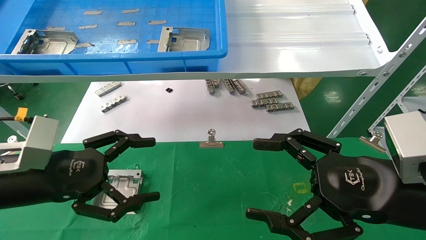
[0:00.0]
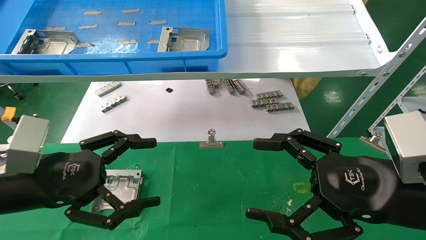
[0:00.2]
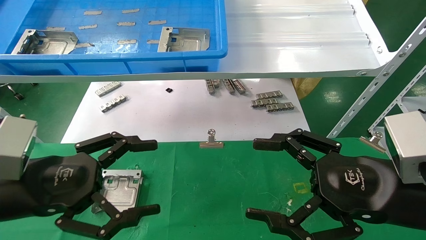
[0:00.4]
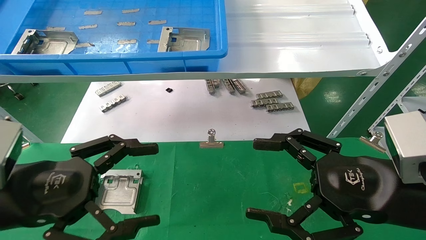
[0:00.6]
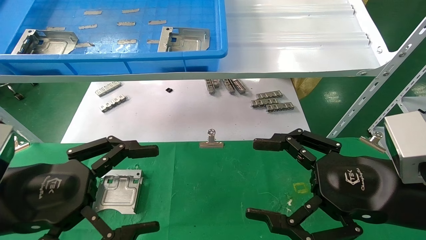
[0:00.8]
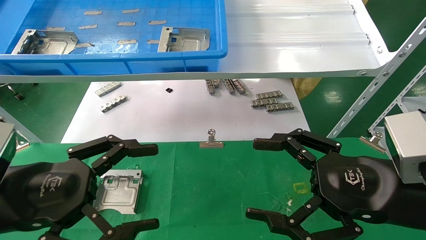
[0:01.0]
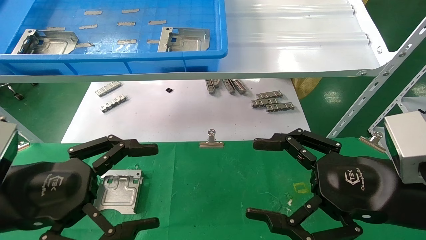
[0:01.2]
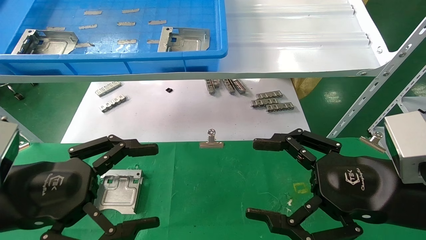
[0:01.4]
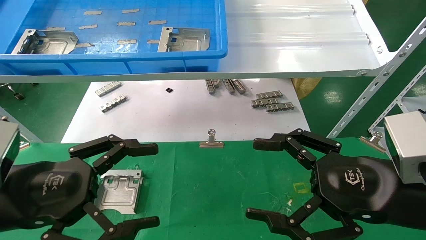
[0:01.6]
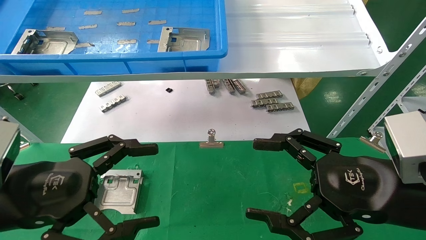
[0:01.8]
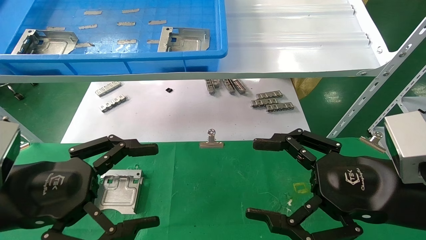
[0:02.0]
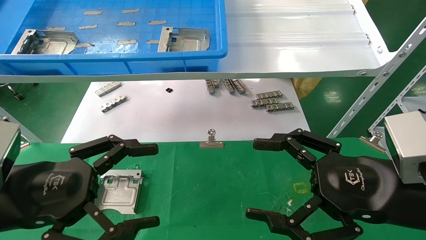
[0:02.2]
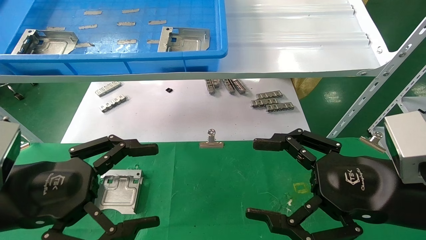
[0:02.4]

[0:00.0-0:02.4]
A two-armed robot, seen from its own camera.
Task of the whole recording: use the mechanical arm to pick up the parts and place them on the table.
0.0 to 1.2 s: The left gripper travels backward by some 5 cm.
1.2 to 2.4 s: Both grippers stay put.

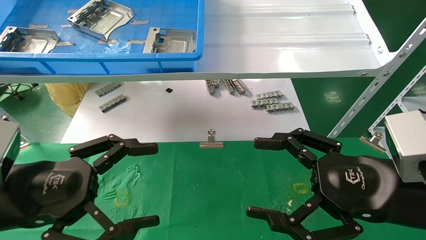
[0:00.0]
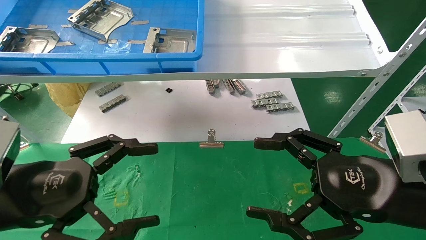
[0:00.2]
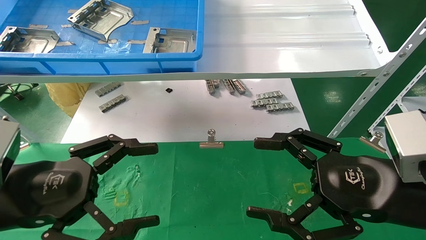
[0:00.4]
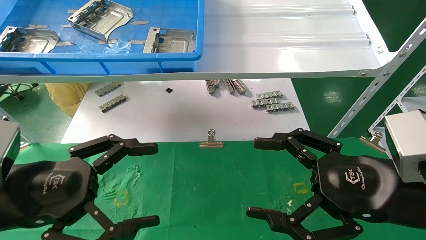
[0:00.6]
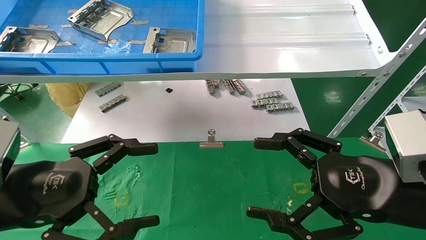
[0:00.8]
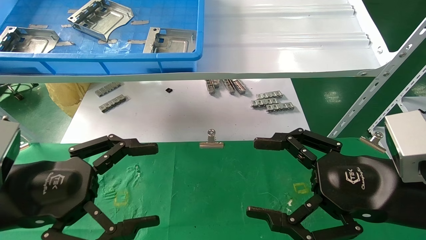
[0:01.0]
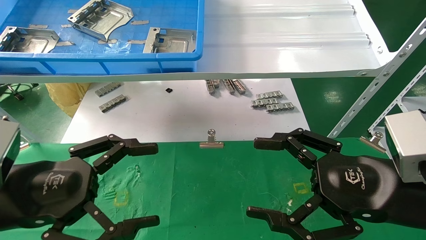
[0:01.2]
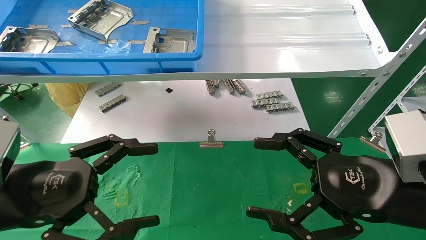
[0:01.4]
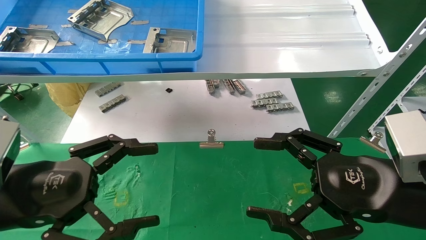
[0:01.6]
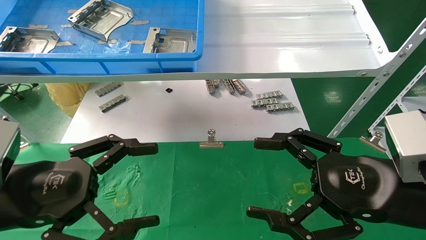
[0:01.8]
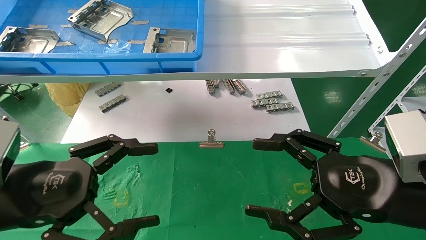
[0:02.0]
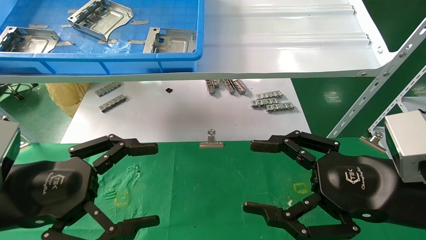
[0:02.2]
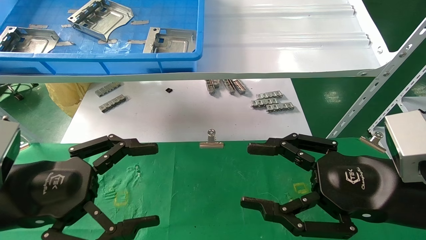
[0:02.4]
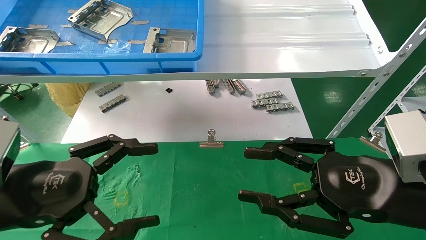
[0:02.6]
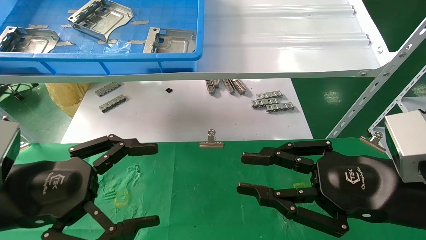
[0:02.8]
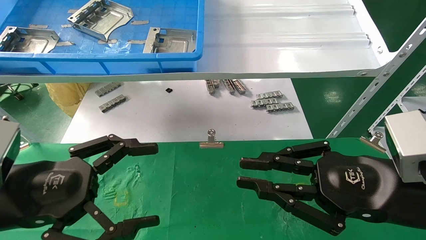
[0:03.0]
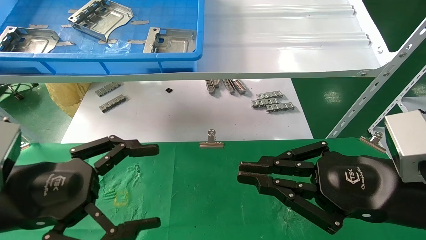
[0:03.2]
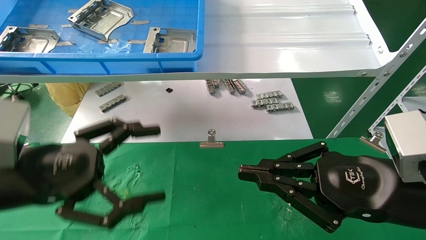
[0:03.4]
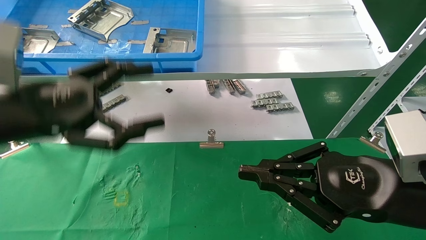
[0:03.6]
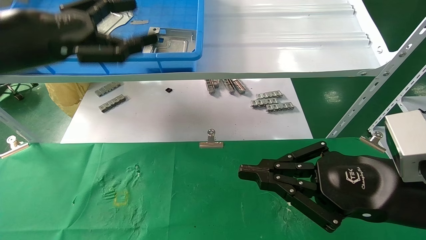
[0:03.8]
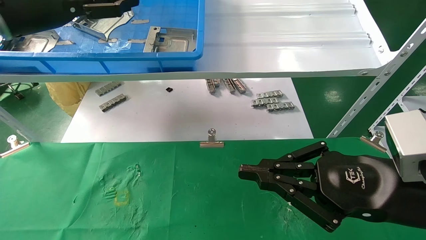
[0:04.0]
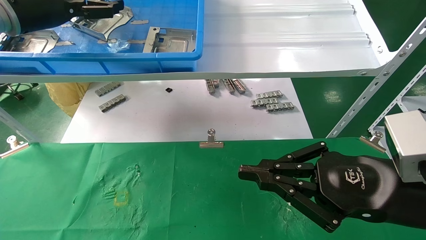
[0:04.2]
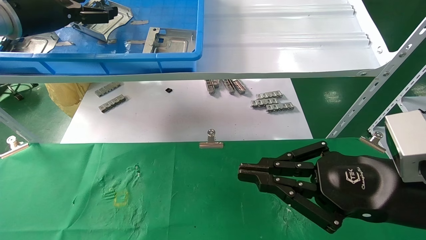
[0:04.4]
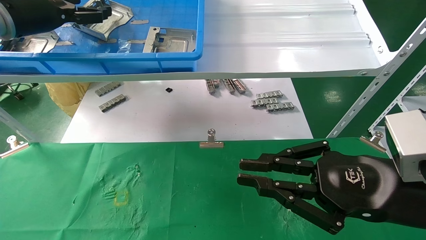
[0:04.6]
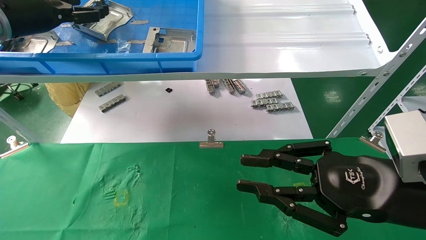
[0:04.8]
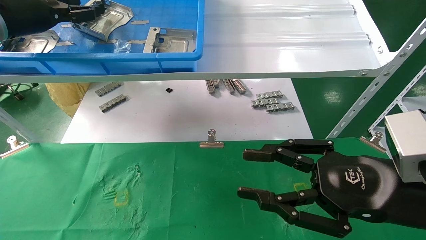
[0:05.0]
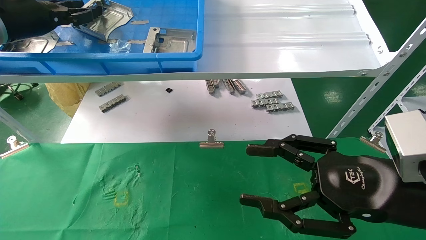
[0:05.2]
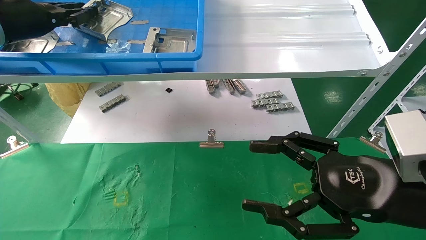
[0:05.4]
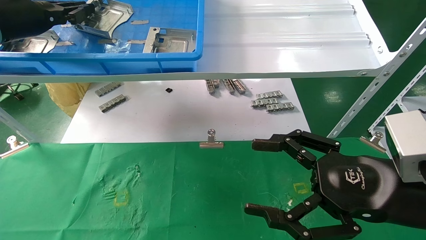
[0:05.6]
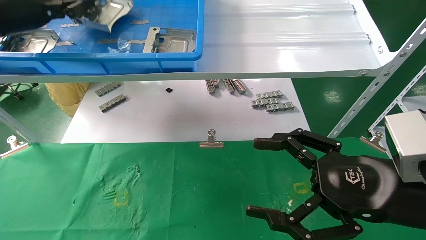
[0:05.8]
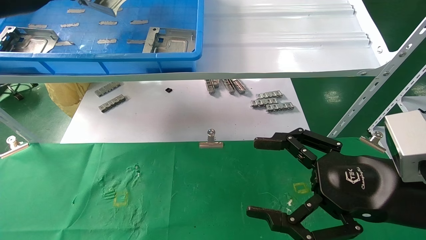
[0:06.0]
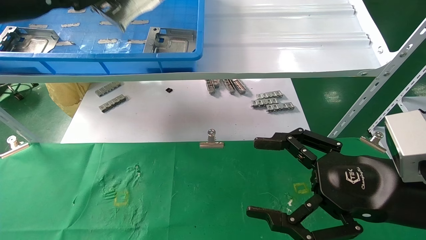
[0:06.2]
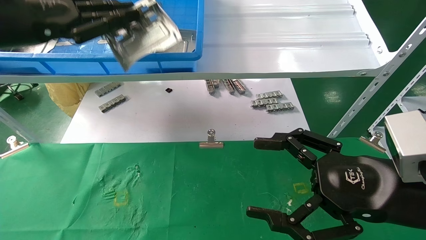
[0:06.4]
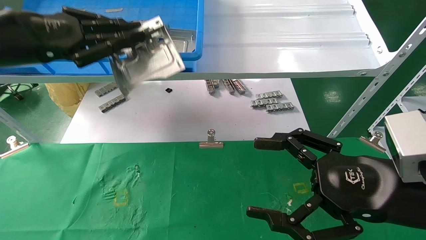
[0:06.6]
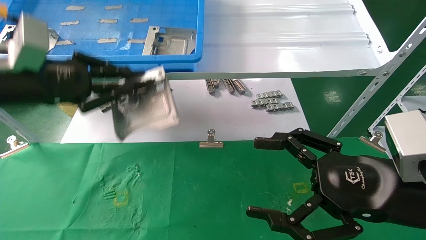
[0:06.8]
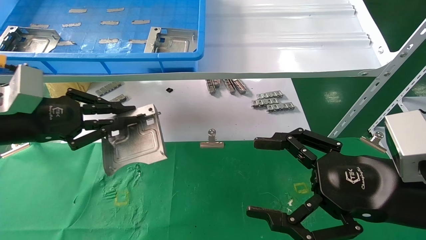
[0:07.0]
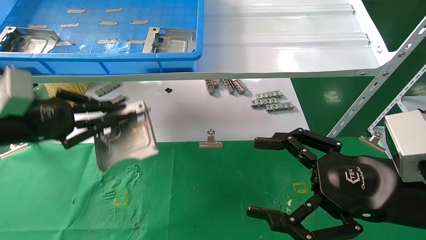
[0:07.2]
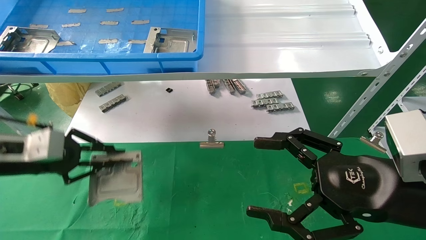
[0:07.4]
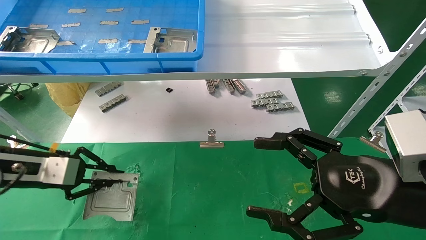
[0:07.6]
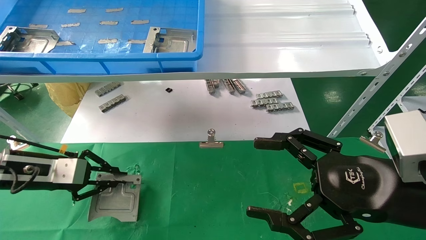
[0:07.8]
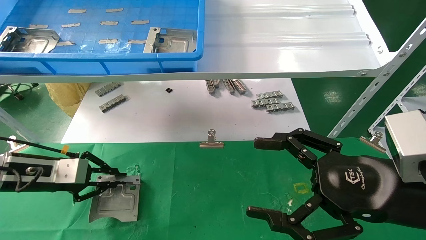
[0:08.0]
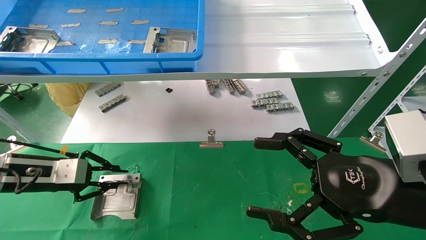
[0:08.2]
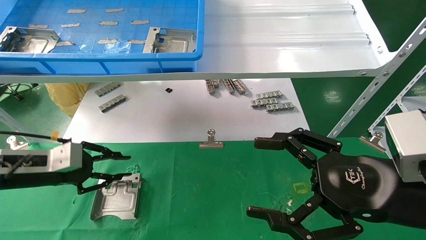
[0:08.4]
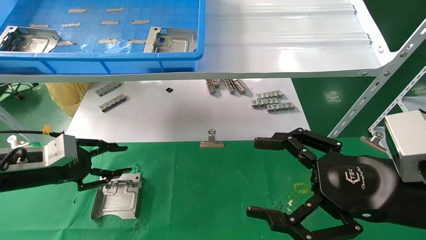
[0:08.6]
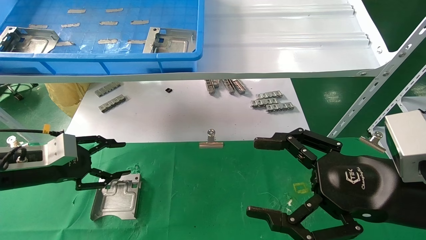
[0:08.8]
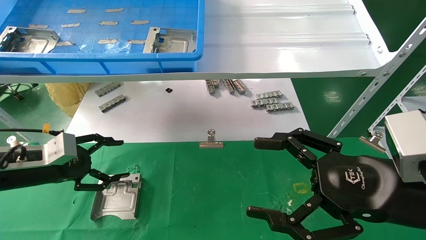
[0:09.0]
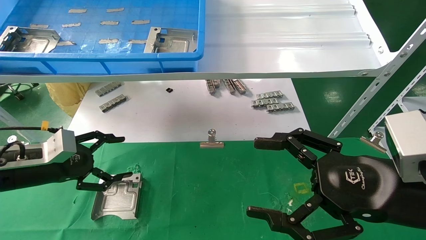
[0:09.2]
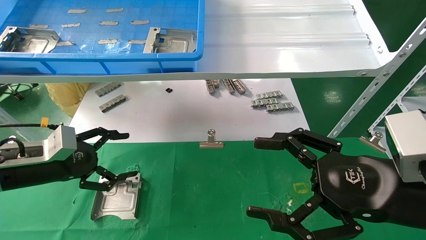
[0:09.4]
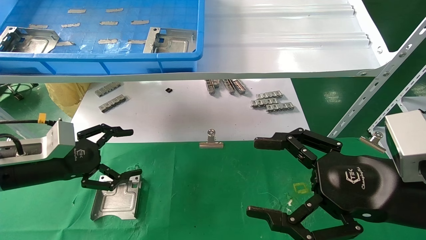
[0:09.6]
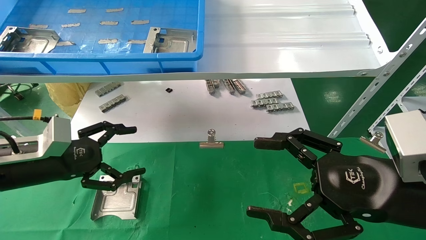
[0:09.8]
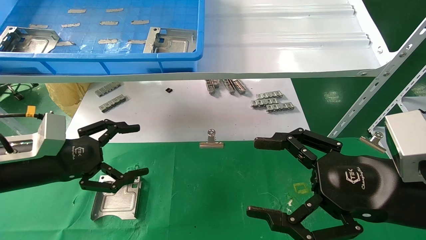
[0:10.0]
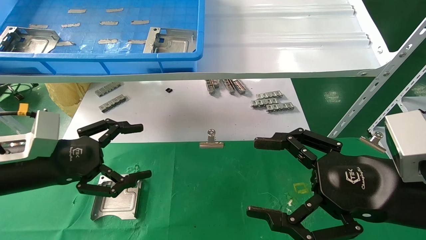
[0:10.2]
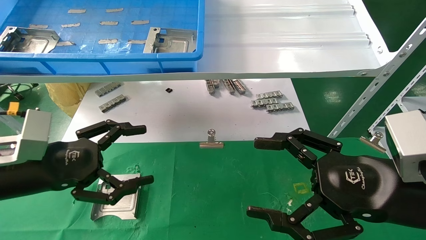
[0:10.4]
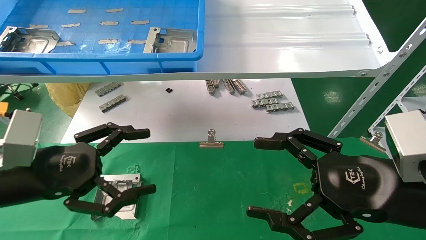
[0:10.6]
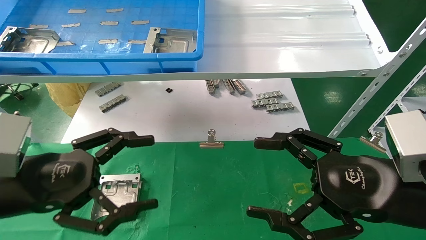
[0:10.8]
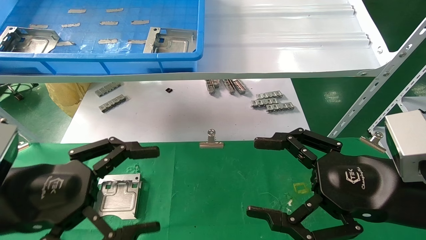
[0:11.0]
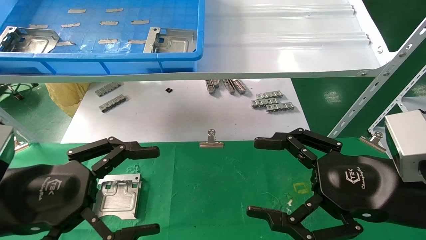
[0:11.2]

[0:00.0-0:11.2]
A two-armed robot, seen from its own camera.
Task of the whole recording: use the mechanical arm to pick up the parts and place them on the table.
Step, 3.6 to 5.6 s: Pick up the hard drive bracket from the feeding area.
Step, 5.8 to 8.4 s: Place the hard drive bracket into the box.
0.0 to 1.6 s: Both grippers stay put.
1.6 to 3.2 s: The right gripper closes.
3.2 to 4.8 s: The left gripper travels forward and upward by approximately 30 cm.
4.8 to 6.4 s: The right gripper opens its fingers; the left gripper shifts some 10 cm backward, and closes up.
6.4 to 8.0 s: The left gripper is displaced downward by roughly 25 cm.
8.0 to 9.6 s: The left gripper opens its fingers.
9.6 to 11.2 s: The left gripper travels backward and to the right by roughly 15 cm.

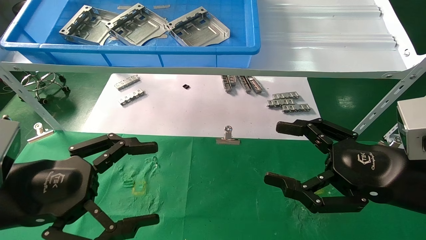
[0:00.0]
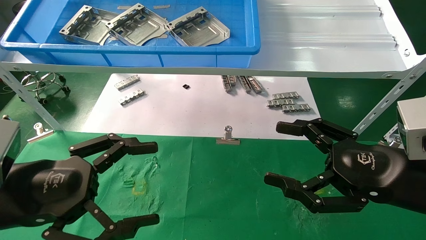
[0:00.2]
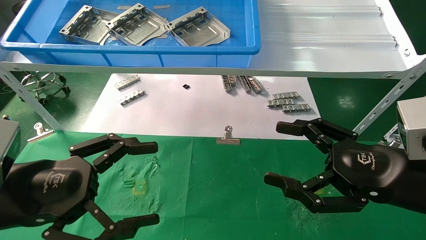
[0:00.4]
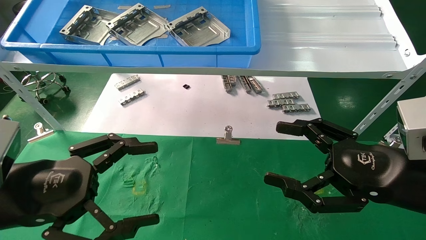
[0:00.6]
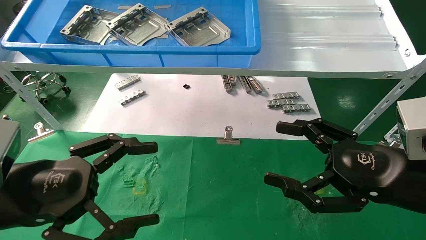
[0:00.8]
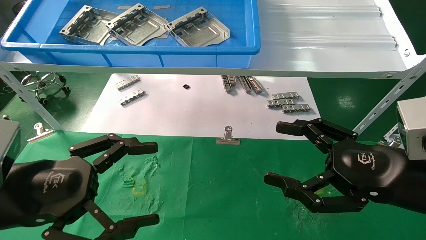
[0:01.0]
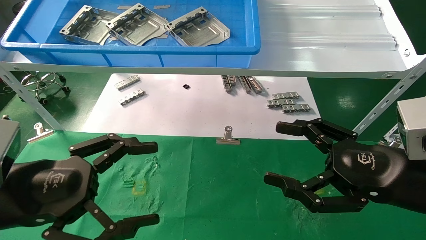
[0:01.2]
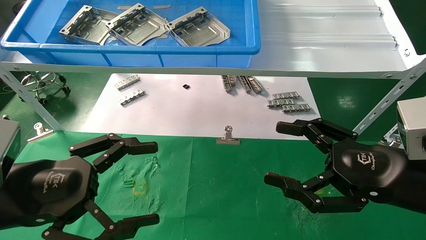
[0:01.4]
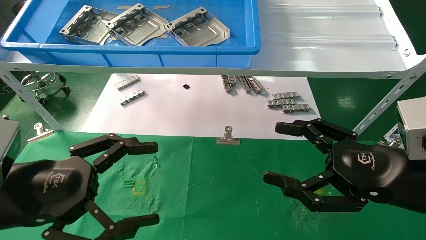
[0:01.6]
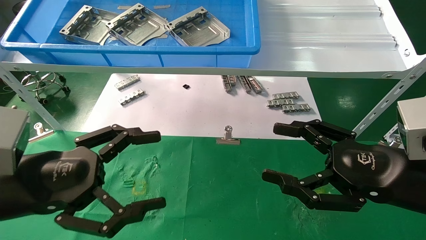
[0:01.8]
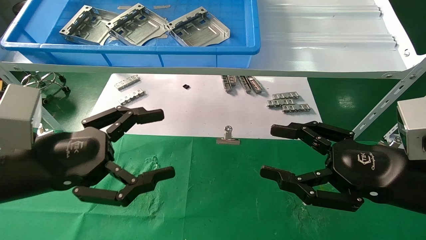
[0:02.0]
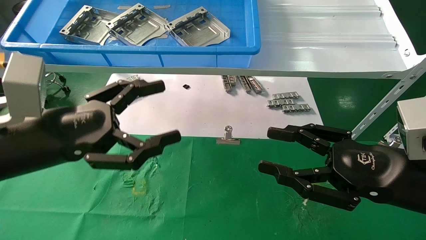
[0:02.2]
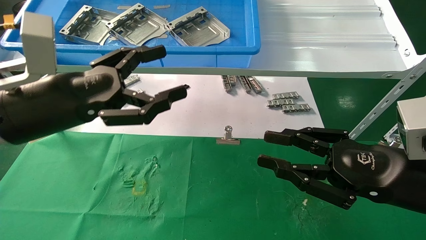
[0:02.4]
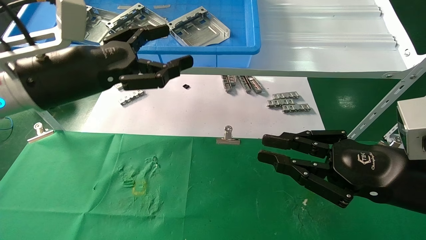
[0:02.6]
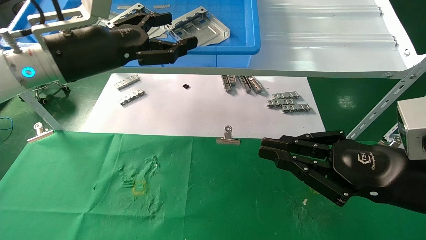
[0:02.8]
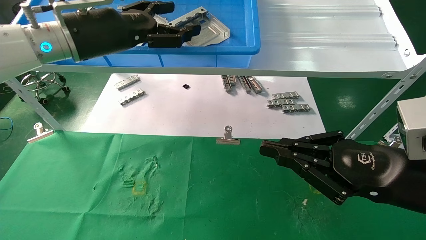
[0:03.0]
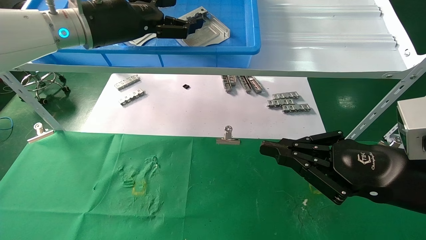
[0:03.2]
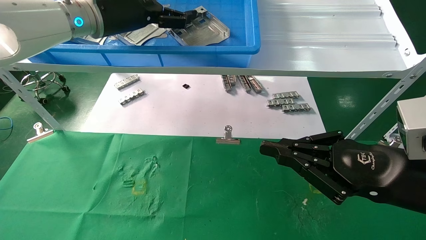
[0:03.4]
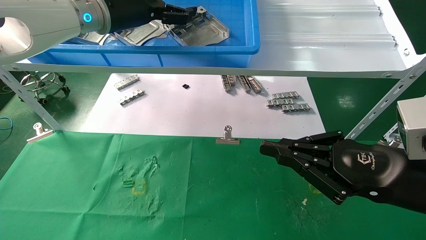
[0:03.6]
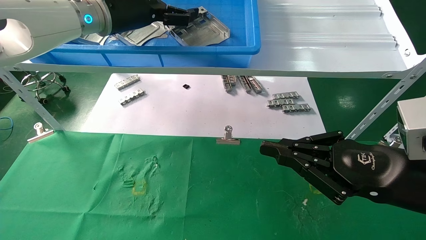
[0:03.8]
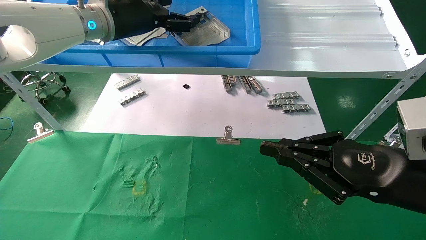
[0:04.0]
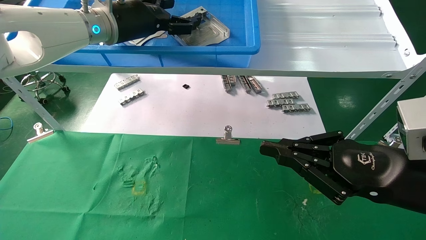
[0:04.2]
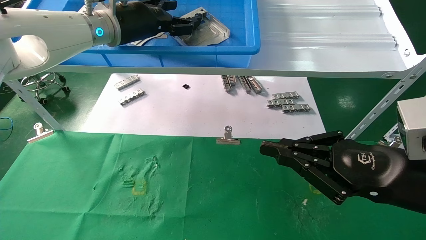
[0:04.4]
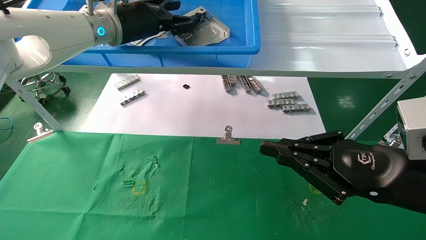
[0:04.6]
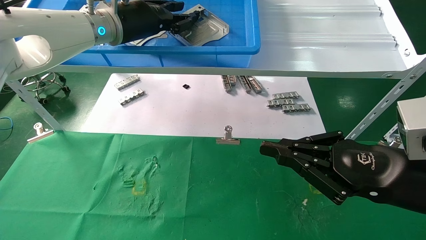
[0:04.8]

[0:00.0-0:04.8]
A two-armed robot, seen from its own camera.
Task of the whole recording: use the mechanical arm to pick up the parts and place them on the table.
0.0 to 1.6 s: The two grippers keep their place.
1.6 to 3.2 s: The left gripper travels forward and upward by some 30 cm, while the right gripper closes up.
3.2 to 4.8 s: The left gripper closes its fingers.
